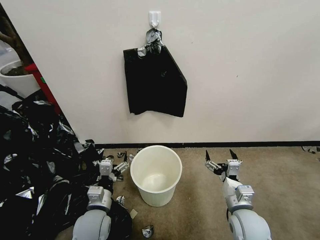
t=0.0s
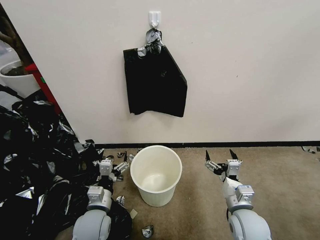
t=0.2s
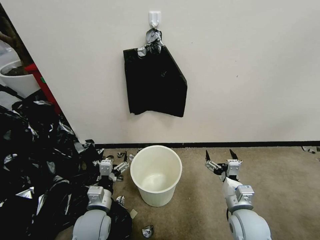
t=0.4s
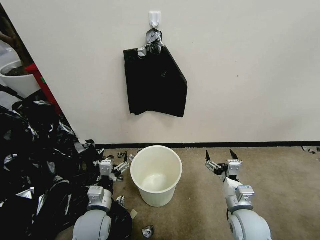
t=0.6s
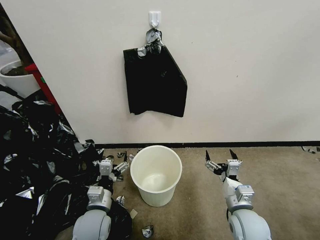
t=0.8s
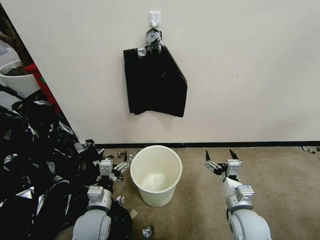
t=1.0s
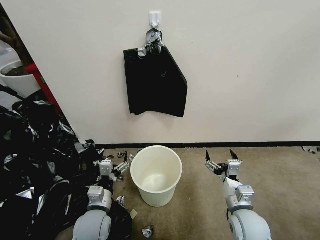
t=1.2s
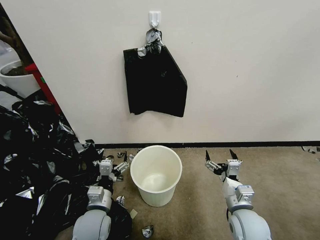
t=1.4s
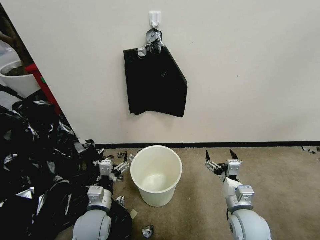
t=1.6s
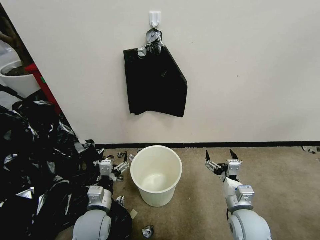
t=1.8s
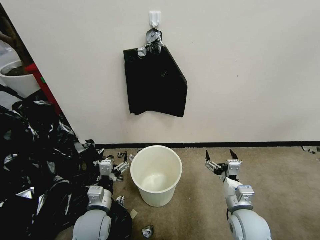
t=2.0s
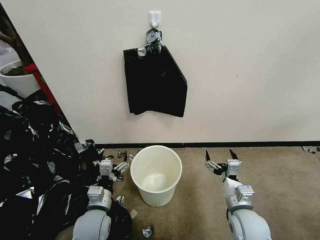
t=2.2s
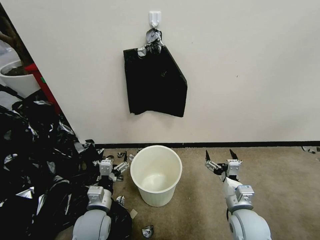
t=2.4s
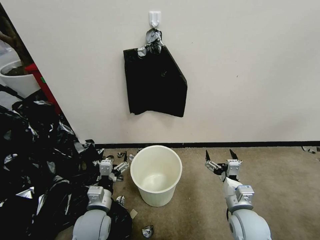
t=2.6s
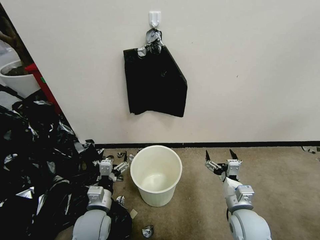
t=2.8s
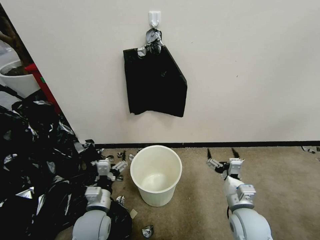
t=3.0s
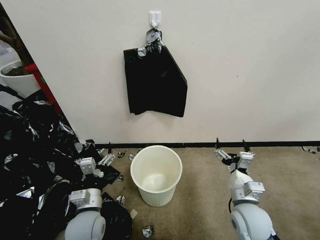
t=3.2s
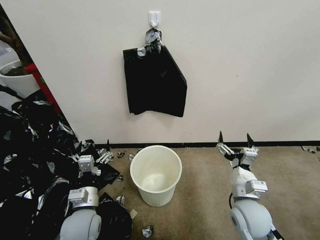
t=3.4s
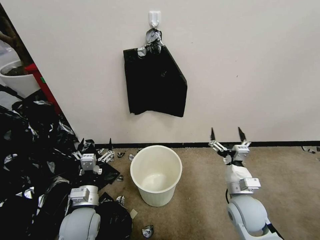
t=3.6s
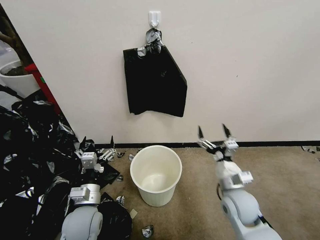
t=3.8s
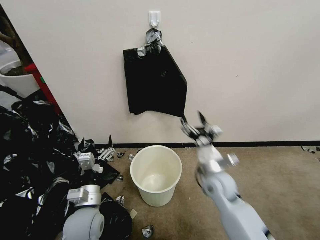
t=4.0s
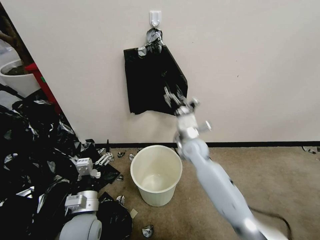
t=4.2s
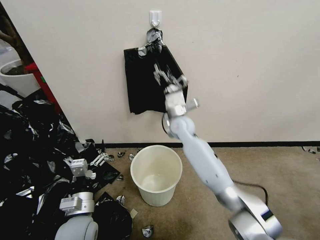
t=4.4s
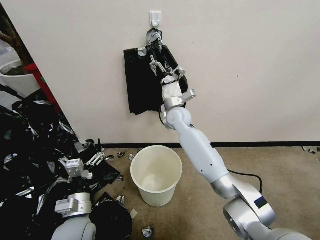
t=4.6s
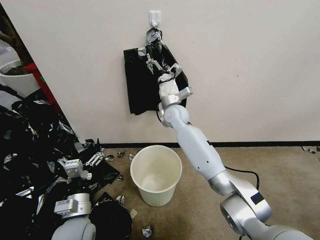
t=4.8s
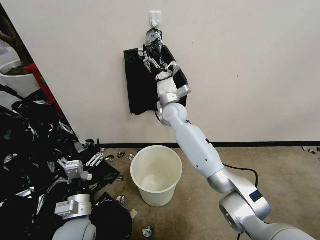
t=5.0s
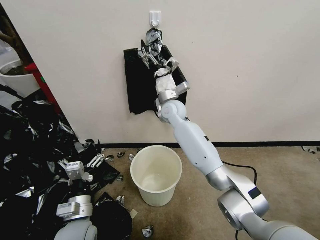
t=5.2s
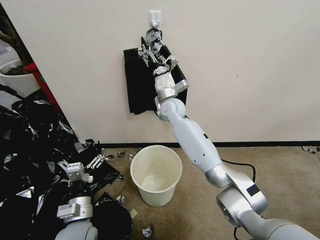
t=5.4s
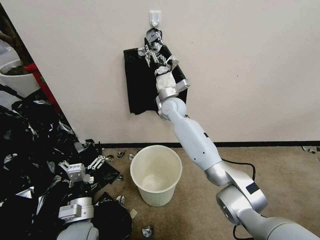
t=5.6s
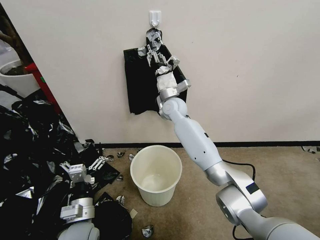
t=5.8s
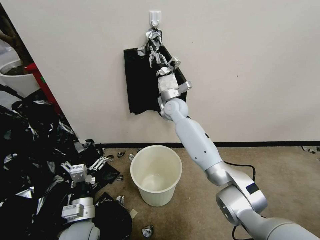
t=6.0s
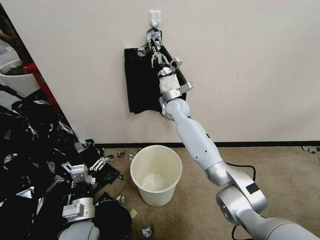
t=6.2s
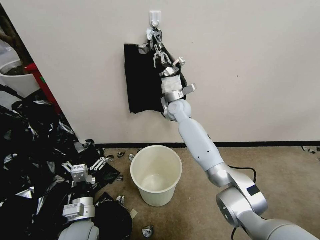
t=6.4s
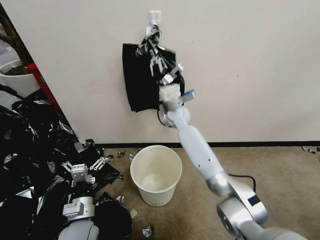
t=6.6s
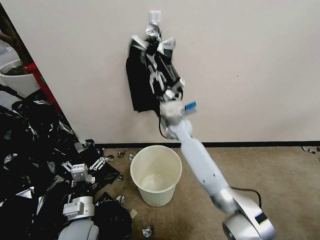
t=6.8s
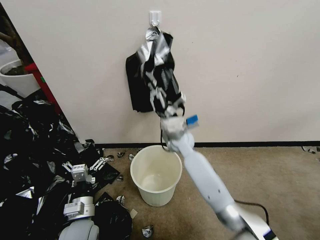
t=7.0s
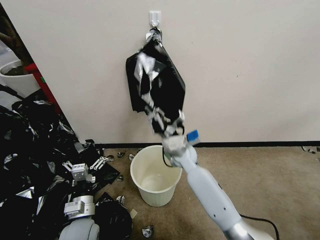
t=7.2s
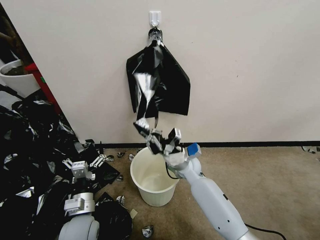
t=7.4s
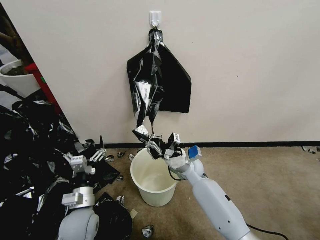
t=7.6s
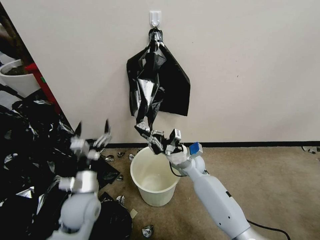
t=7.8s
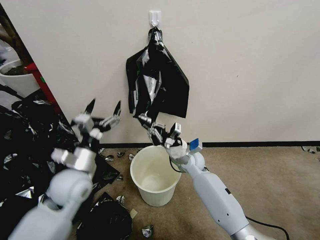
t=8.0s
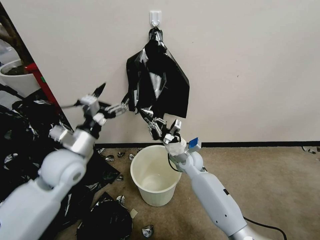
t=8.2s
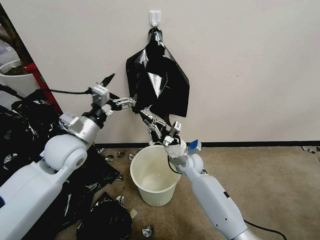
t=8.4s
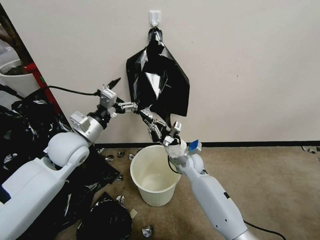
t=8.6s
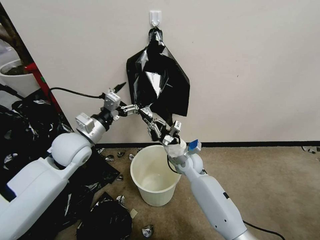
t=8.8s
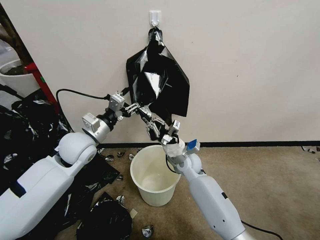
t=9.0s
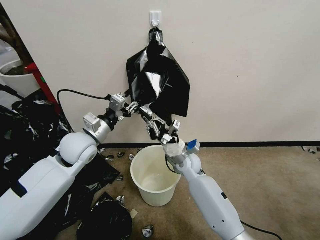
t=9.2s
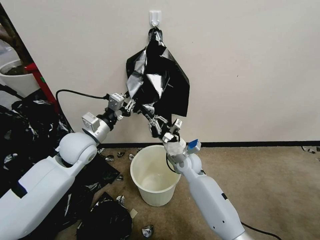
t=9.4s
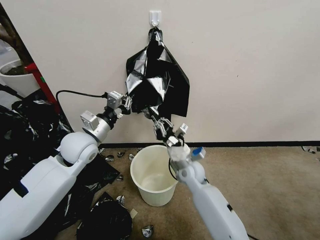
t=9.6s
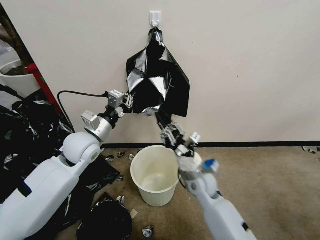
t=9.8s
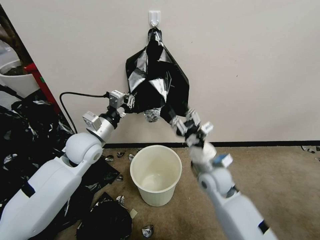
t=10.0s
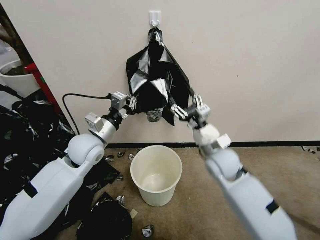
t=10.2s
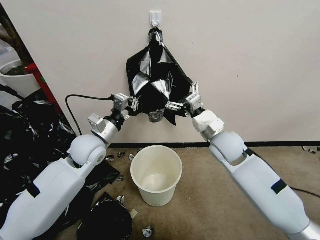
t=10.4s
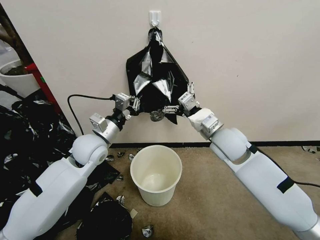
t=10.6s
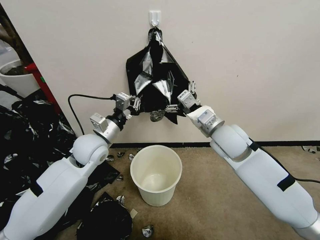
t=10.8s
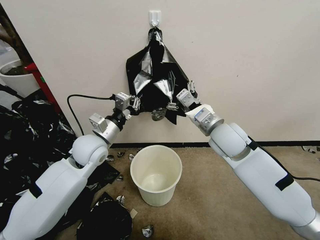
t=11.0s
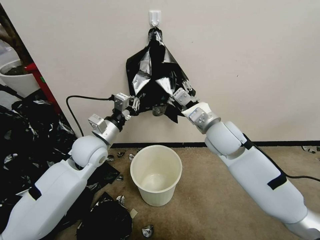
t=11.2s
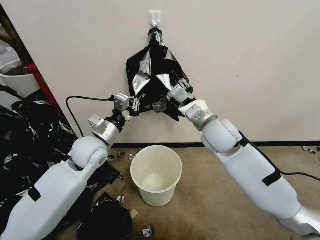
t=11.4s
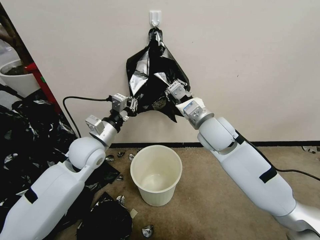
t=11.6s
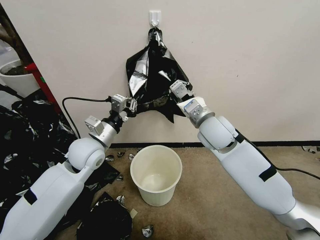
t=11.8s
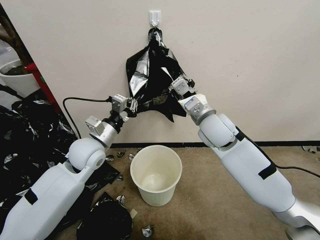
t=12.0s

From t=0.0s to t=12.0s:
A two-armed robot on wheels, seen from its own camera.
Task of the whole recording: Place a trash bag onto the trash bin.
From t=1.6s to t=3.0s: The grippers make only small movements.
From t=3.0s to t=4.4s: The right gripper moves forward and to the left, approximately 35 cm.
From t=4.4s to t=6.0s: The right gripper moves forward, approximately 5 cm, and closes its fingers.
From t=6.0s to t=7.6s: The right gripper heads downward and backward, covering roughly 25 cm.
From t=7.6s to t=9.0s: The left gripper is displaced forward and upward by about 25 cm, and closes its fingers.
From t=9.0s to t=10.4s: The right gripper is displaced upward and to the right by about 15 cm, and opens its fingers; the left gripper closes up.
From t=10.4s to t=12.0s: The right gripper shifts some 5 cm upward, and closes up.

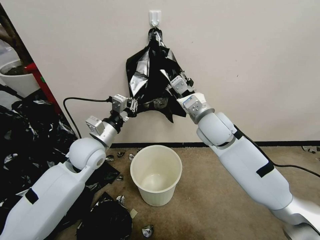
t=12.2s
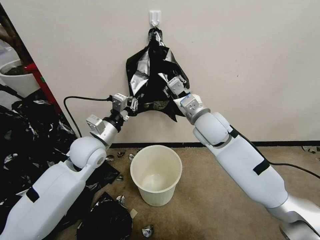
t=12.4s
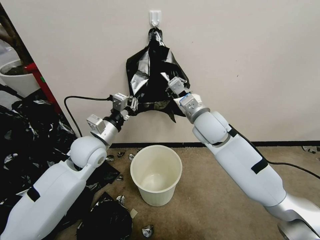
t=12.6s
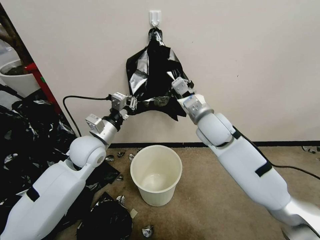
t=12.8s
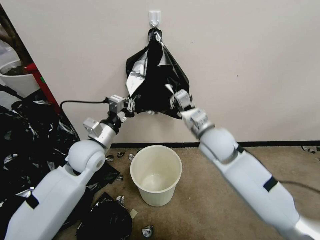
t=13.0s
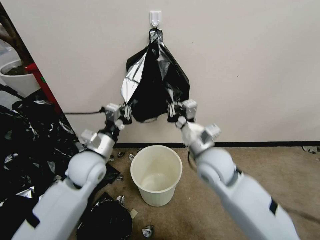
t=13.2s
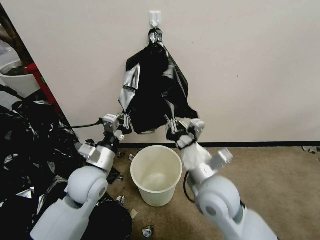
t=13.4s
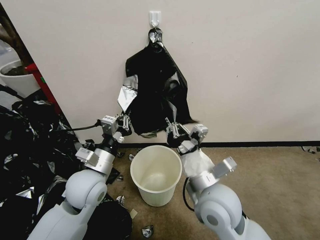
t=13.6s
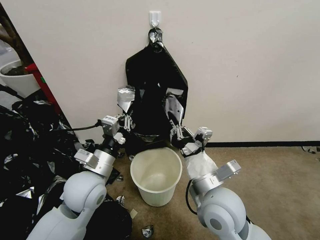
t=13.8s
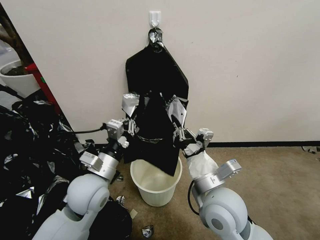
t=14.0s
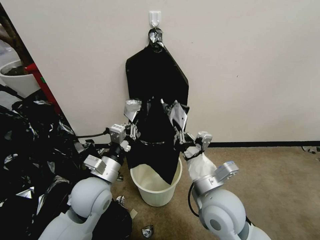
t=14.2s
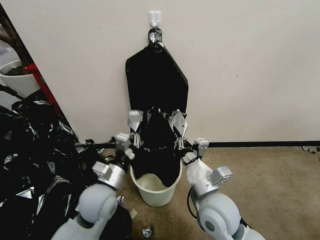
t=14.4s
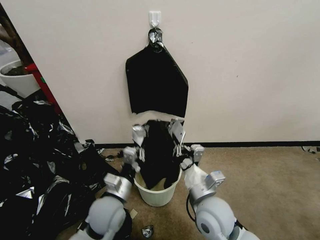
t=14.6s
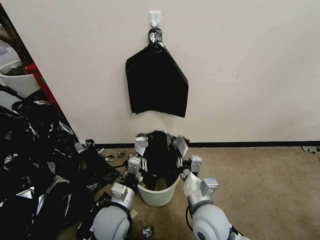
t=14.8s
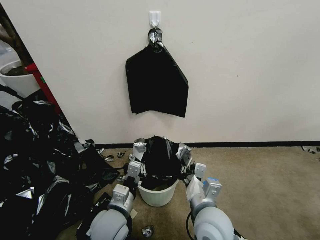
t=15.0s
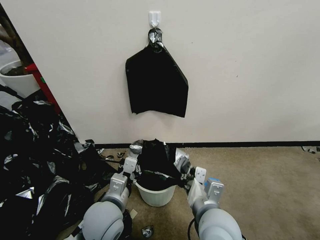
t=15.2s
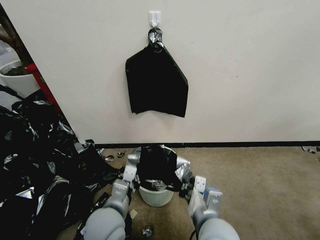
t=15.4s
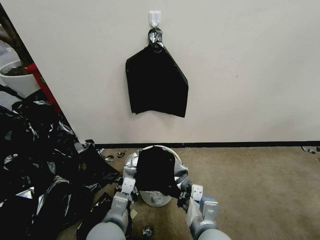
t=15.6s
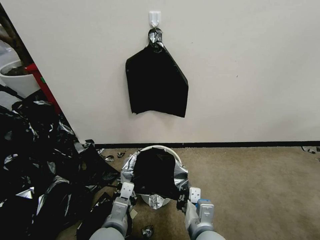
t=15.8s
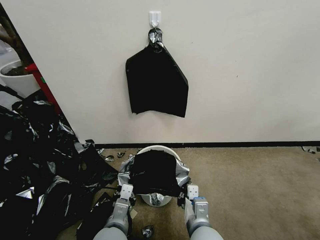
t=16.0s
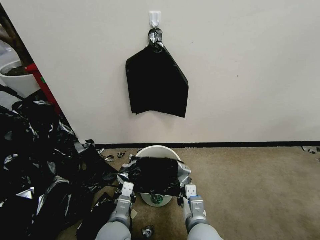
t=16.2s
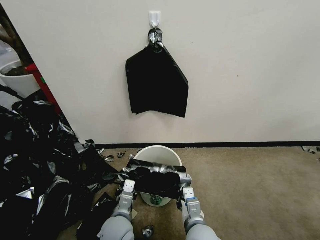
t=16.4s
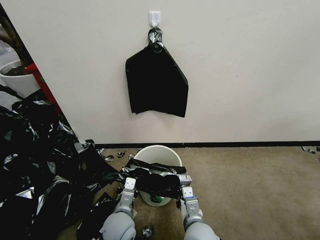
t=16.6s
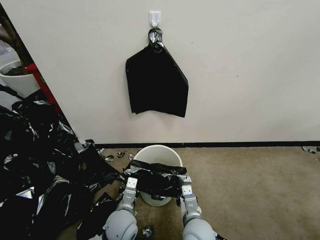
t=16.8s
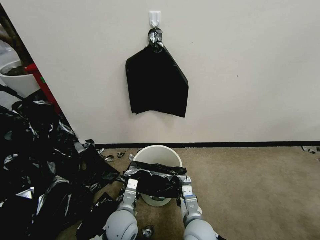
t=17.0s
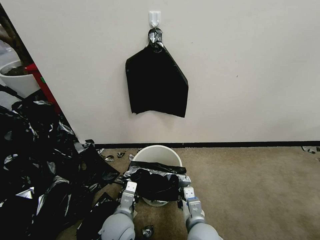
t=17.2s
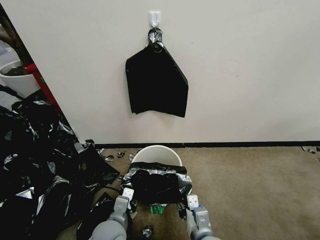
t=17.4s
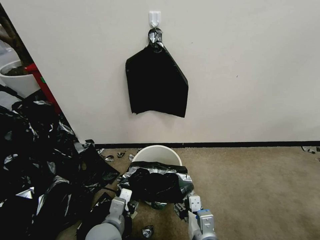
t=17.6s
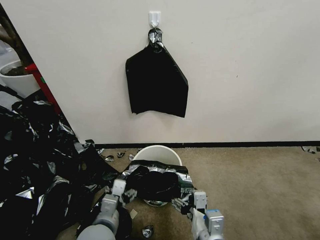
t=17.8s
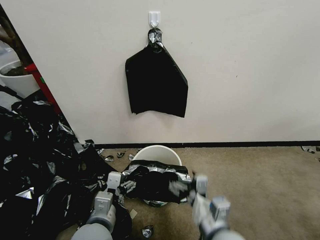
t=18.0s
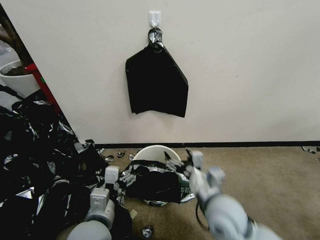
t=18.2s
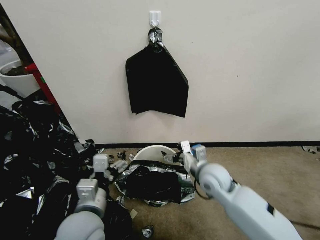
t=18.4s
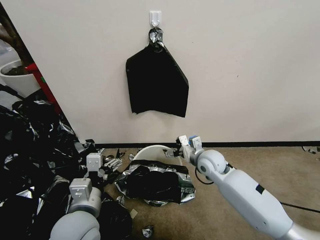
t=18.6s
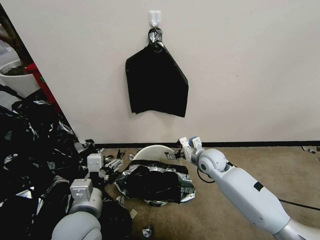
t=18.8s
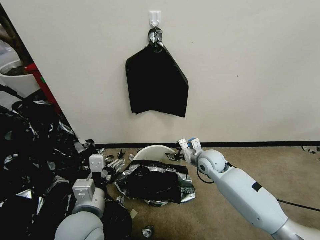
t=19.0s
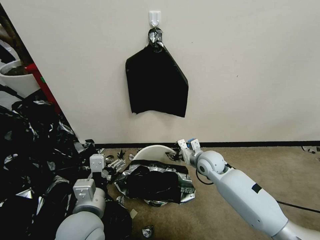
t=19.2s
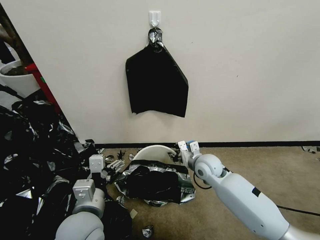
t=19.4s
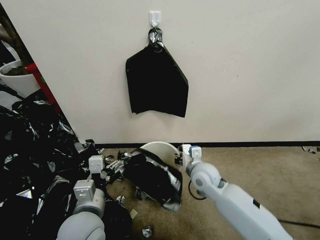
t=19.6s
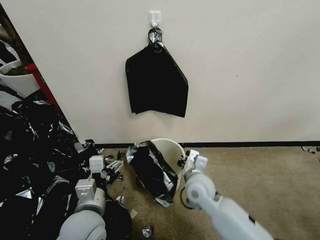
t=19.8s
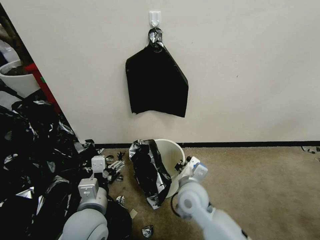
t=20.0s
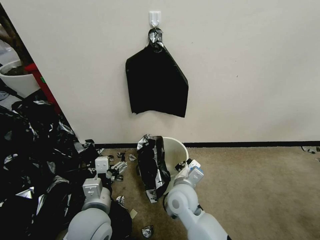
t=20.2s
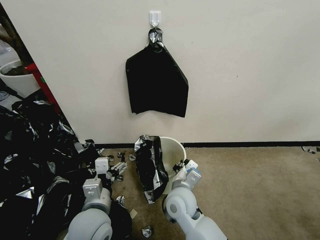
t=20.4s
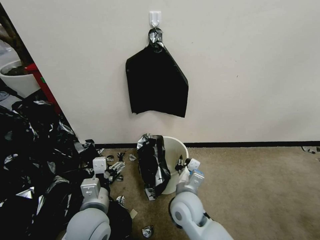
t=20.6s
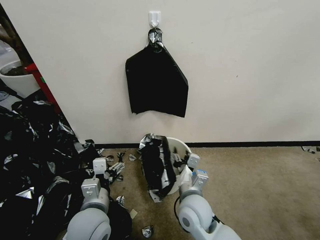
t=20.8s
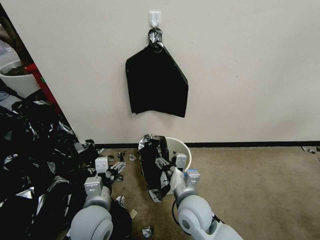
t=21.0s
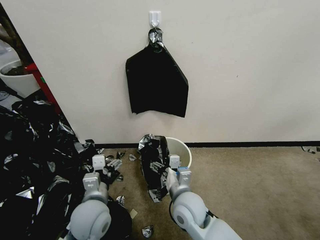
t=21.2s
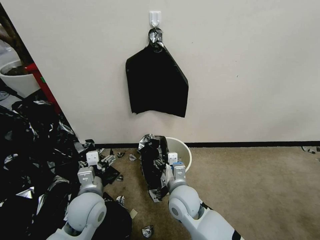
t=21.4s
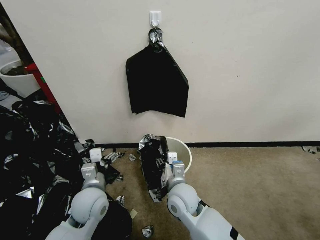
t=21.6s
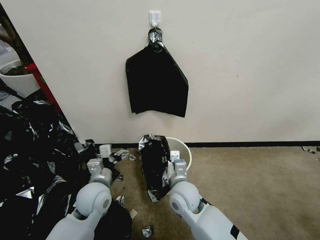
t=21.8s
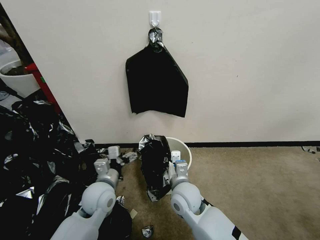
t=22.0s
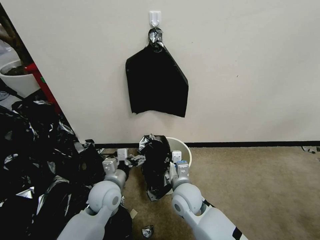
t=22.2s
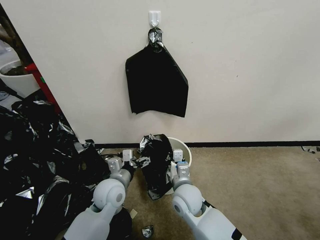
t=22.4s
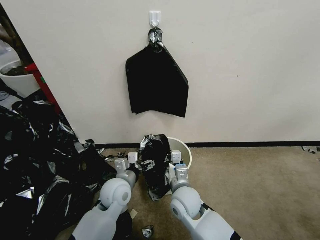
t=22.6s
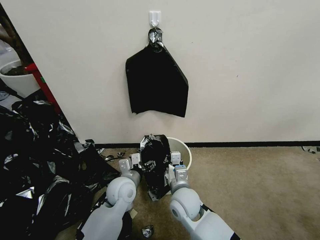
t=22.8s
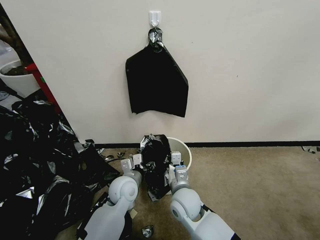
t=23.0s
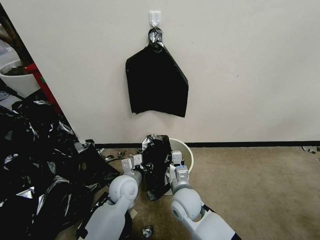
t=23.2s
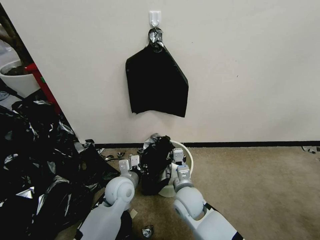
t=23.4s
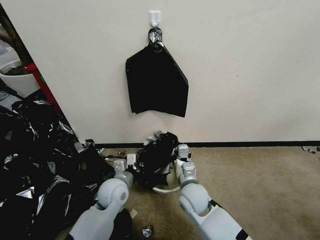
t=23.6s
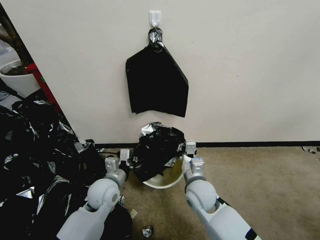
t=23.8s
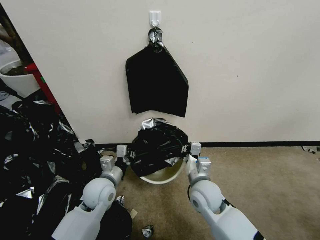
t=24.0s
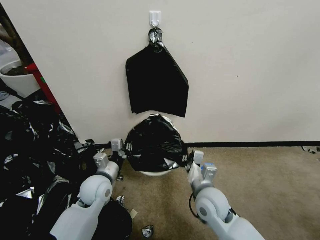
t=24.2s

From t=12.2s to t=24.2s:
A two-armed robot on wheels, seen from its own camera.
Task of the whole recording: Place a trash bag onto the trash bin.
From t=12.2s to t=13.8s: The left gripper shifts approximately 10 cm backward; the right gripper moves backward, some 20 cm, and closes its fingers.
From t=13.8s to t=15.2s: The left gripper heads backward and downward, covering roughly 10 cm.
From t=15.2s to t=16.6s: Both grippers move downward, roughly 10 cm.
From t=16.6s to t=18.2s: The left gripper is displaced upward by approximately 15 cm, and opens its fingers. Meanwhile the right gripper shifts roughly 15 cm upward, forward and to the right, and opens up.
From t=18.2s to t=19.8s: The right gripper goes about 10 cm forward and downward, and closes up.
From t=19.8s to t=21.2s: The right gripper is displaced backward by about 5 cm, and opens its fingers, while the left gripper ends up about 5 cm from where it was.
From t=21.2s to t=22.6s: The right gripper closes its fingers. Meanwhile the left gripper goes approximately 10 cm forward.
From t=22.6s to t=24.2s: The left gripper is displaced to the left by approximately 5 cm, and closes, while the right gripper travels to the right by roughly 10 cm.
